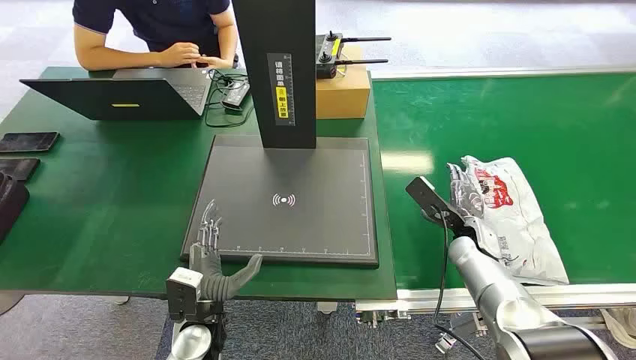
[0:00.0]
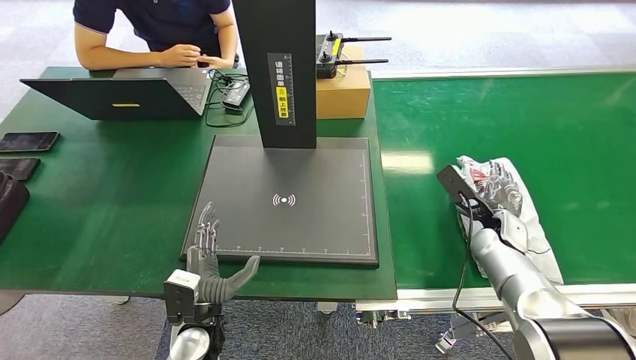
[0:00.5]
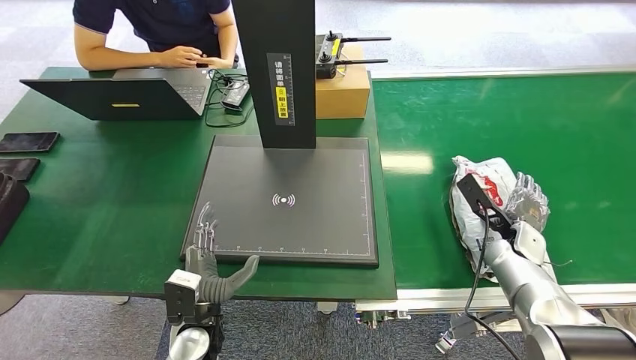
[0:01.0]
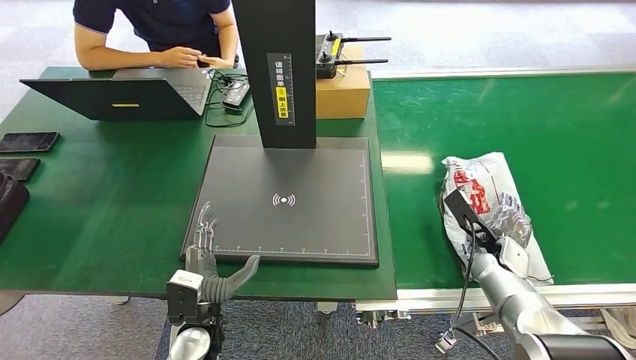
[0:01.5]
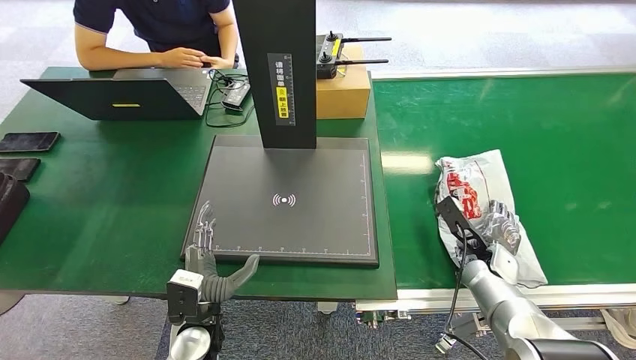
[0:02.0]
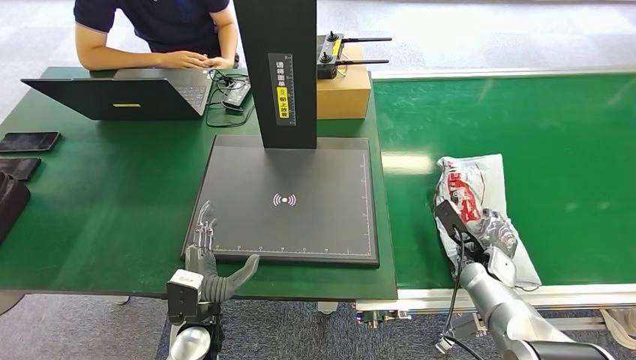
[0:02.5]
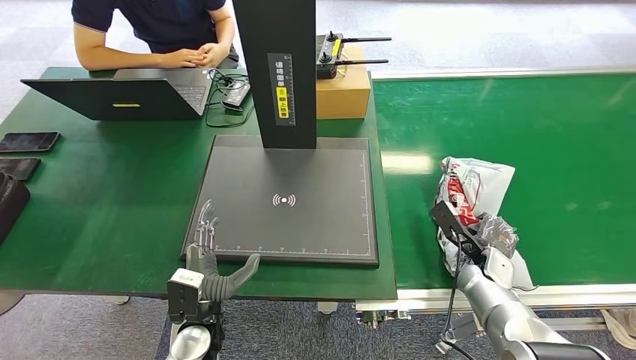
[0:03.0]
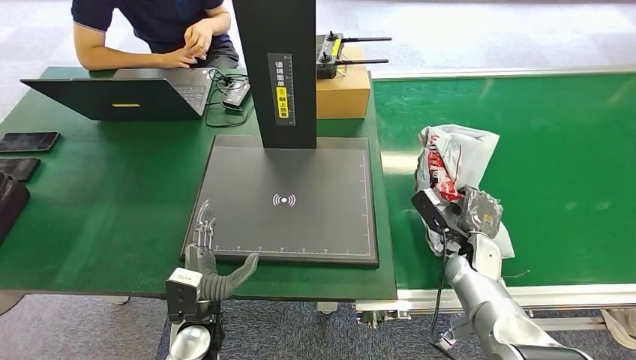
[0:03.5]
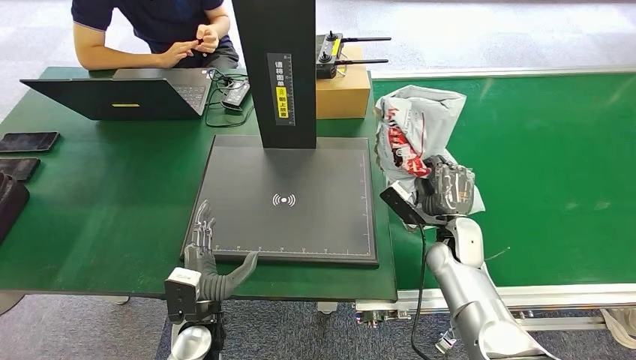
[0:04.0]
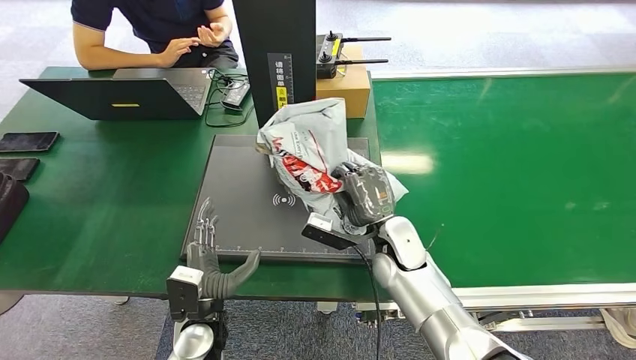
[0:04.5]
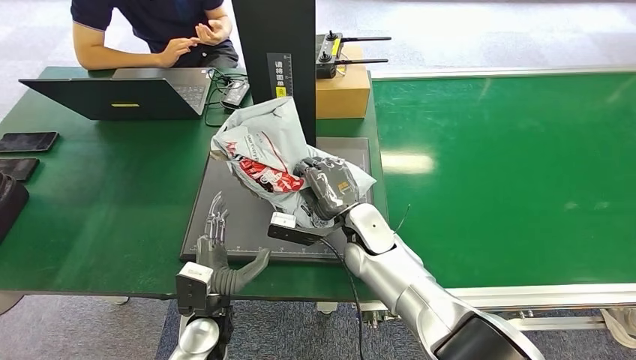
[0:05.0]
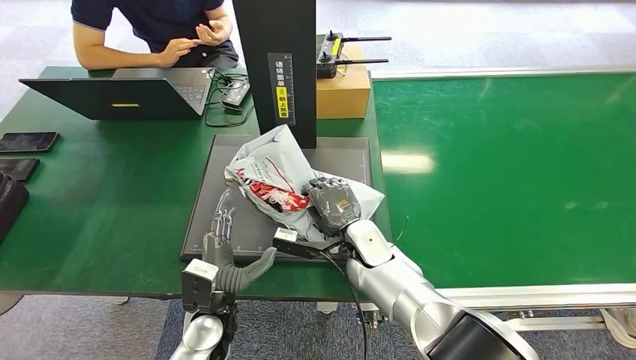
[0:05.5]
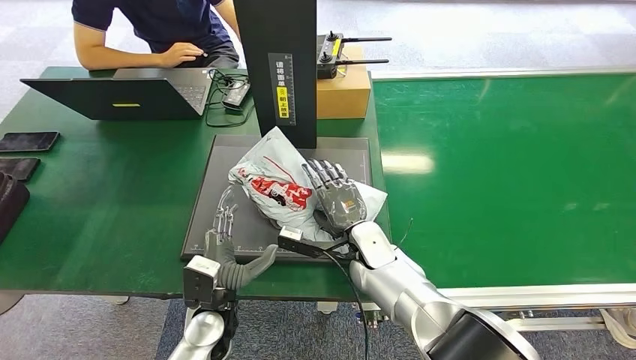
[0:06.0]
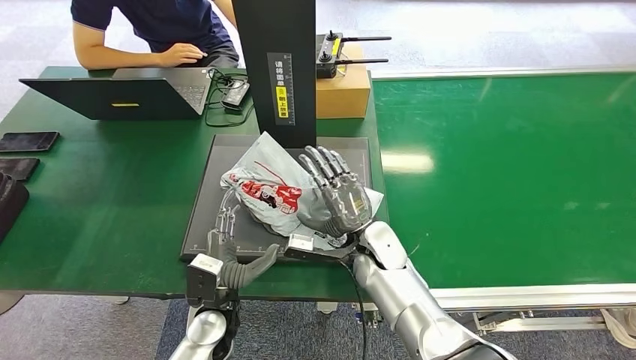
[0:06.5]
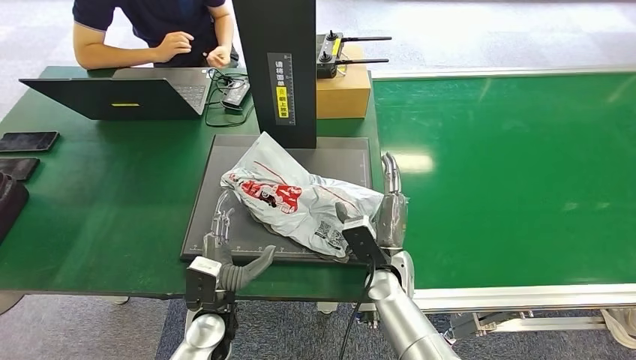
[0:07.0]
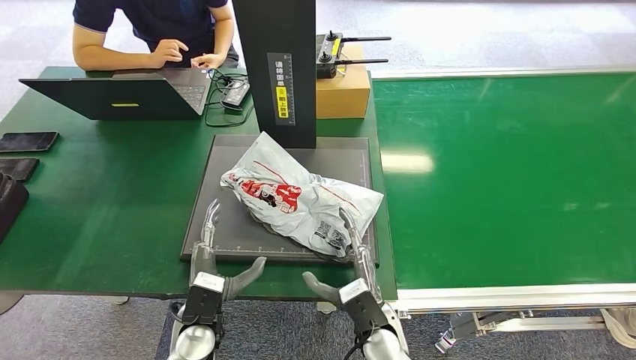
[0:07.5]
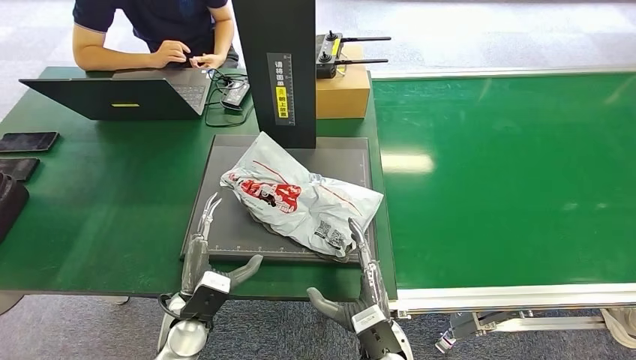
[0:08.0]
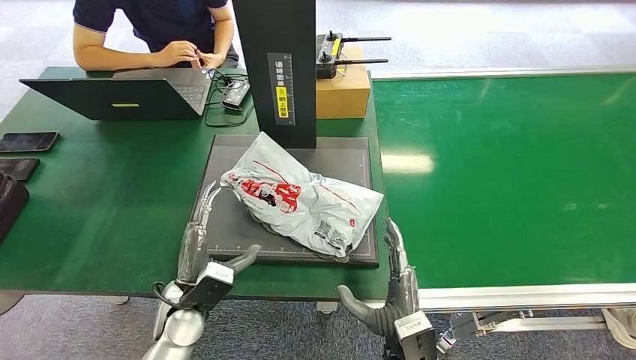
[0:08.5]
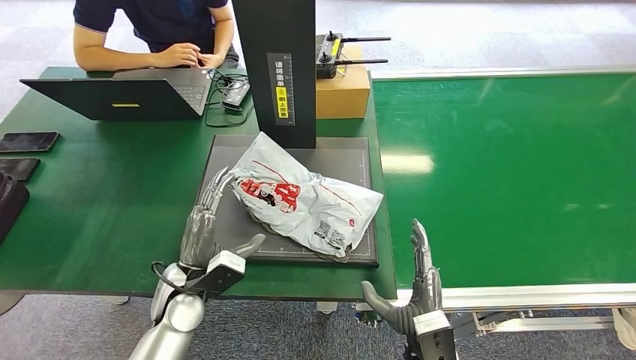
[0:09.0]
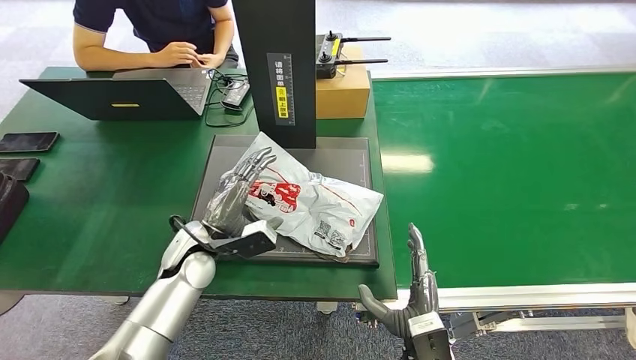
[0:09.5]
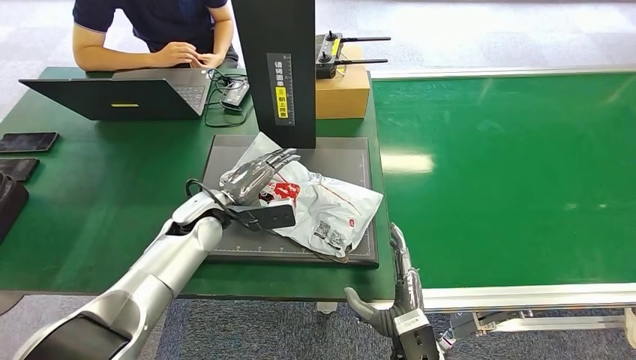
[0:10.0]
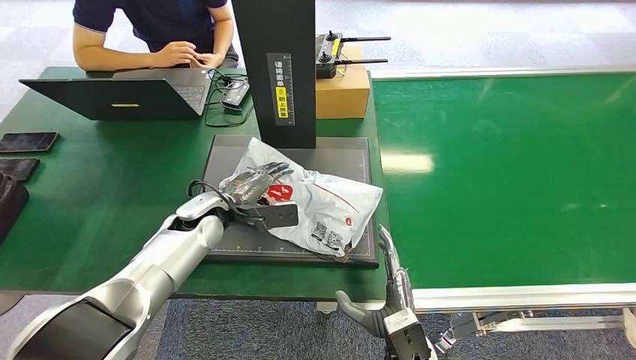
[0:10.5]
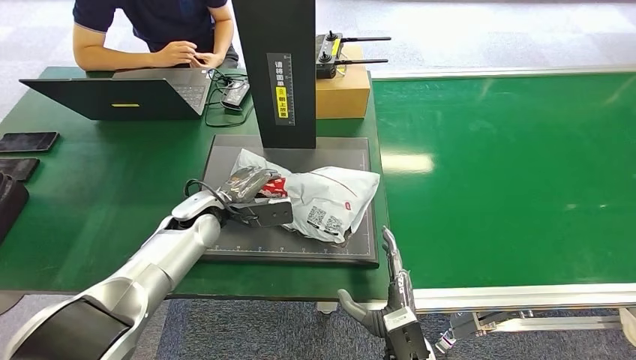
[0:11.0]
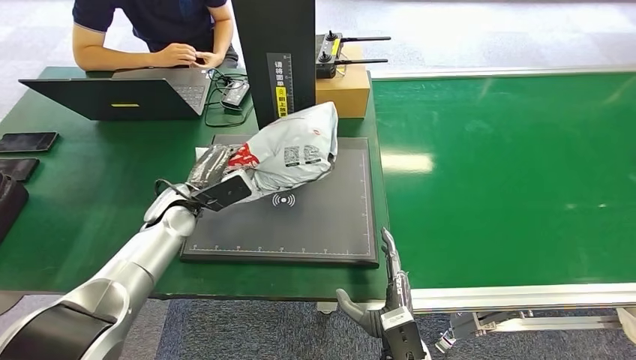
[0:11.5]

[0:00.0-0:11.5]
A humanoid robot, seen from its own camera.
Step, 0:00.0 to 0:04.0: Pick up the package from the conveyor belt.
Step, 0:04.5 to 0:07.0: Place the package onto the inbound machine.
0:02.0 to 0:04.0: The right hand is displaced to the left and upward by roughly 10 cm.
0:04.0 to 0:06.0: The right hand travels to the left by approximately 15 cm.
0:06.0 to 0:07.5: The right hand moves backward, approximately 15 cm.
0:07.5 to 0:09.5: The left hand travels forward and upward by about 15 cm. The right hand moves to the right and backward, approximately 10 cm.
0:09.5 to 0:11.5: The left hand is displaced forward and to the left by approximately 10 cm.

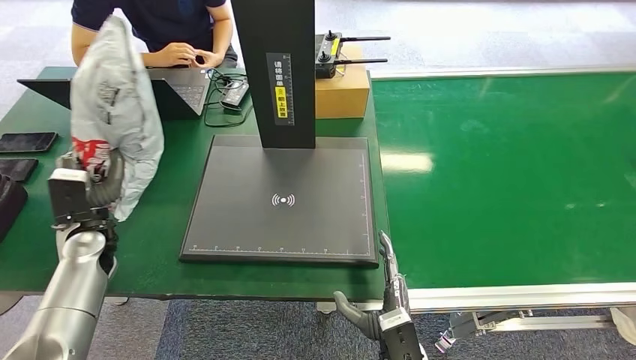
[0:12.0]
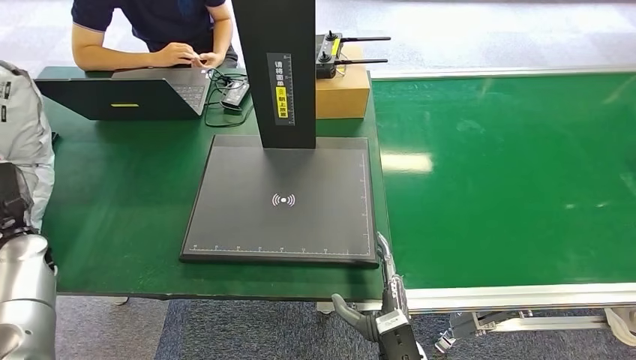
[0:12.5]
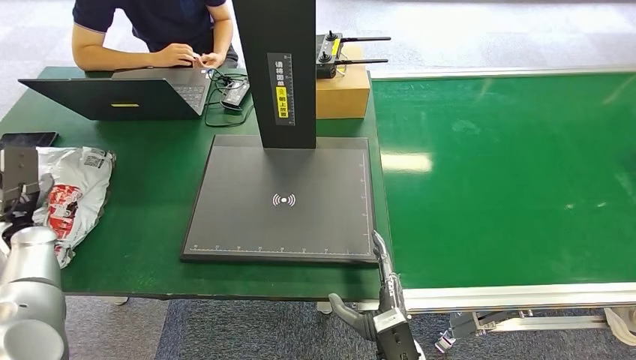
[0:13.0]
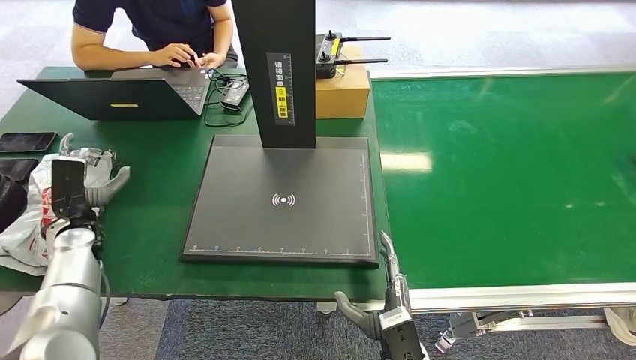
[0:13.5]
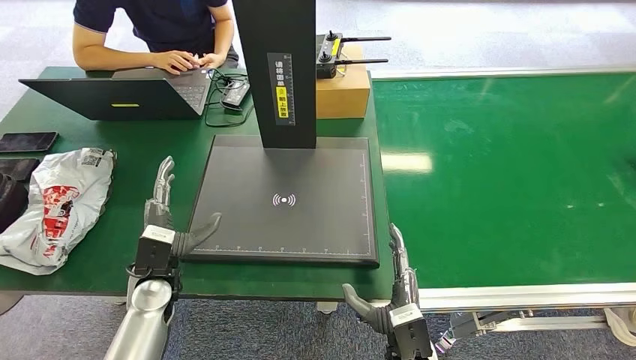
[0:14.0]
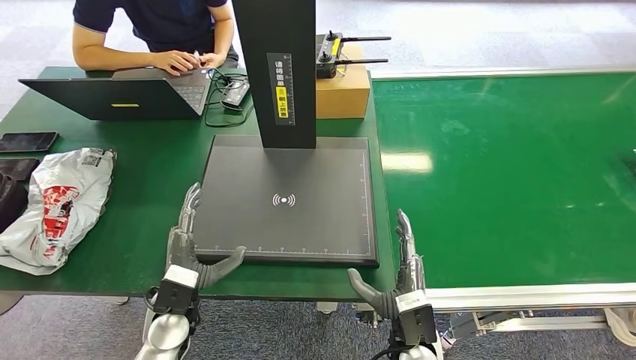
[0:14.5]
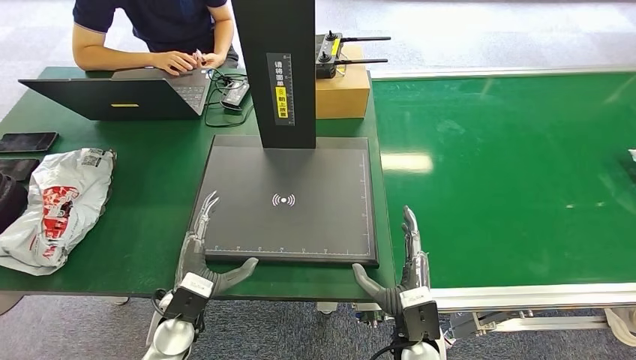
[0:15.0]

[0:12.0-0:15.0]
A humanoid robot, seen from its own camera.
Step, 0:12.5 to 0:15.0: Place the package into the parcel locker.
0:12.0 to 0:13.5: The left hand travels to the left and back again, roughly 10 cm each way.
0:13.5 to 0:15.0: The left hand moves to the right and backward, some 25 cm.

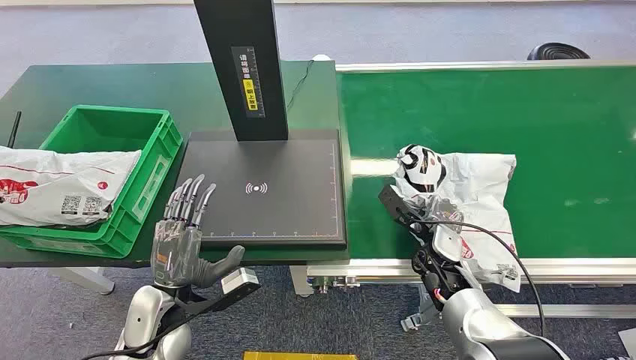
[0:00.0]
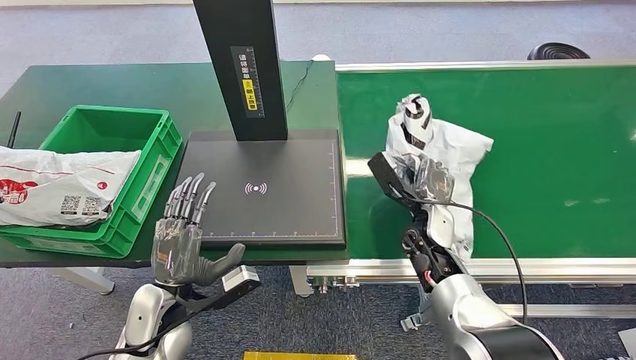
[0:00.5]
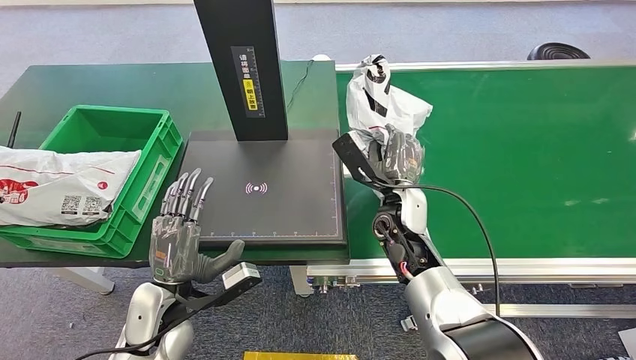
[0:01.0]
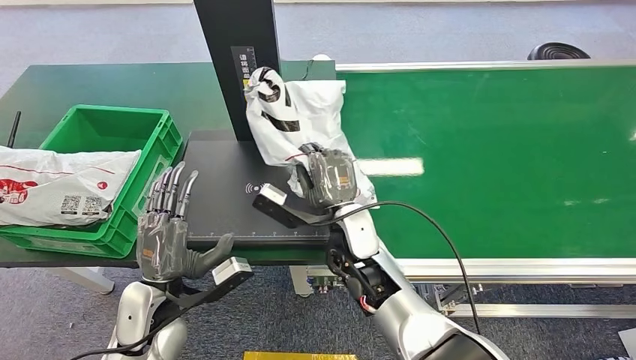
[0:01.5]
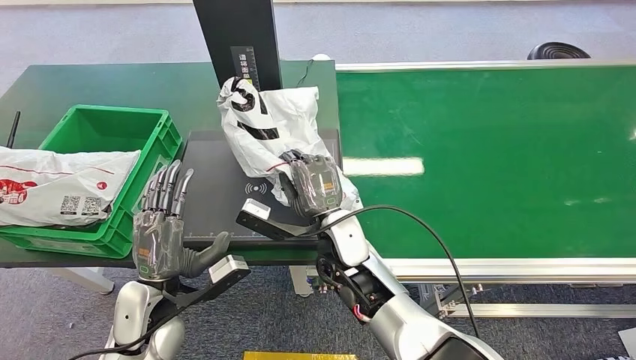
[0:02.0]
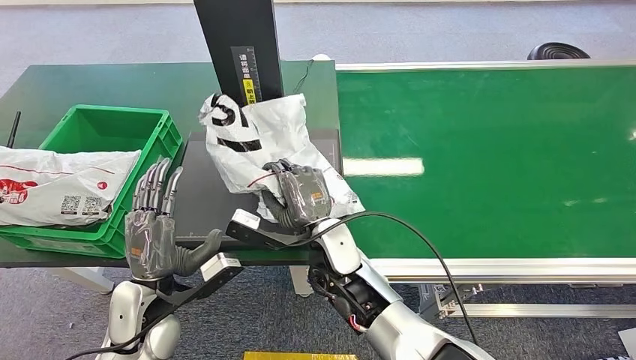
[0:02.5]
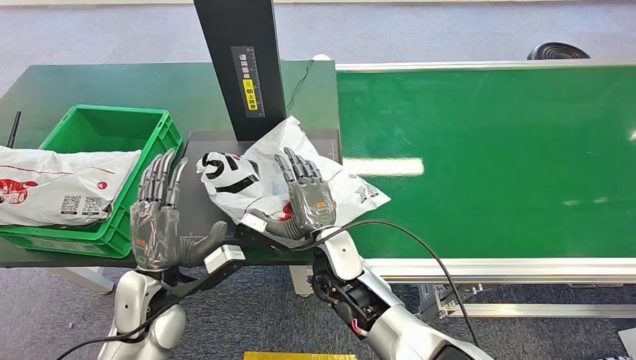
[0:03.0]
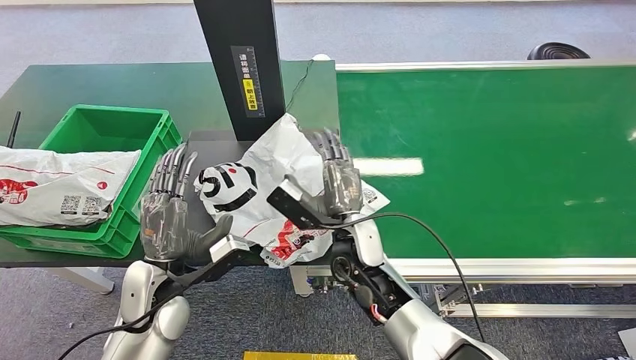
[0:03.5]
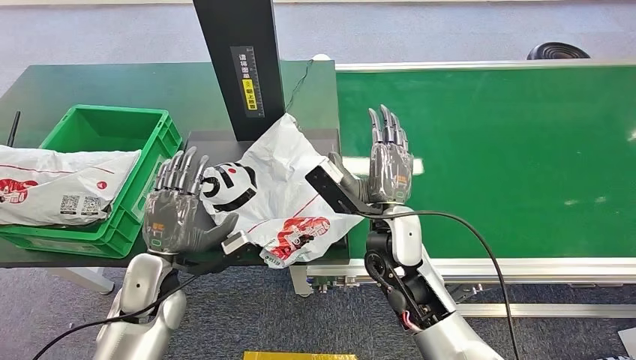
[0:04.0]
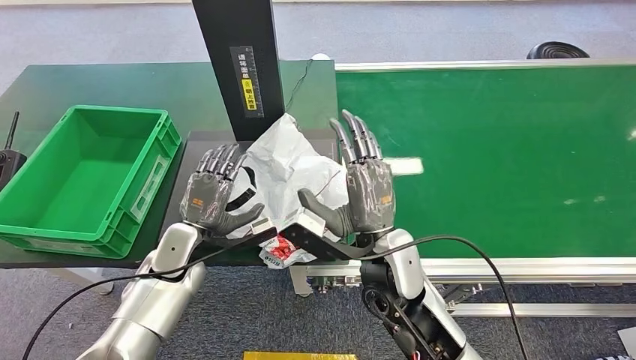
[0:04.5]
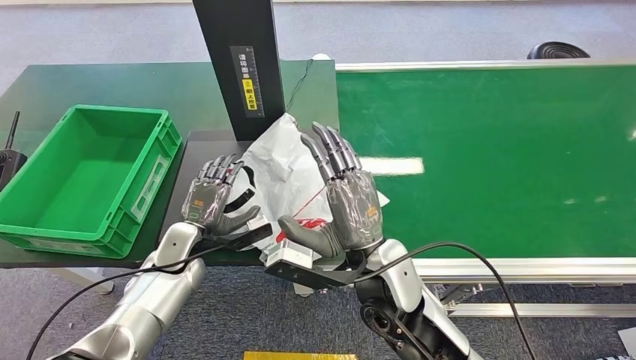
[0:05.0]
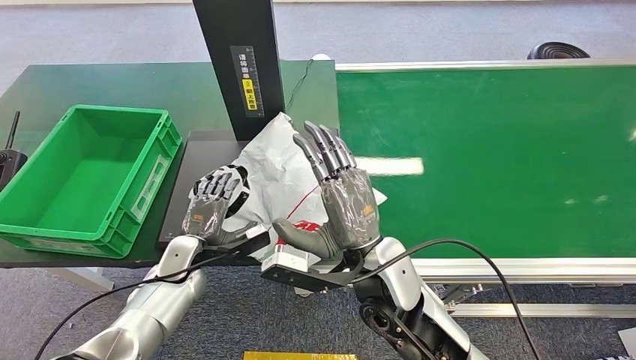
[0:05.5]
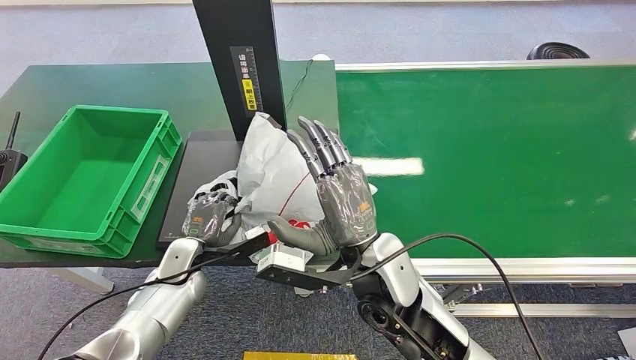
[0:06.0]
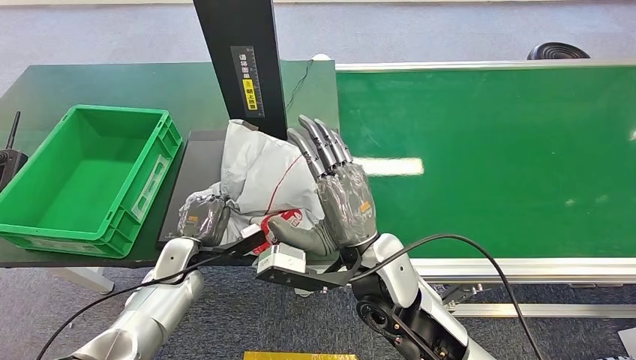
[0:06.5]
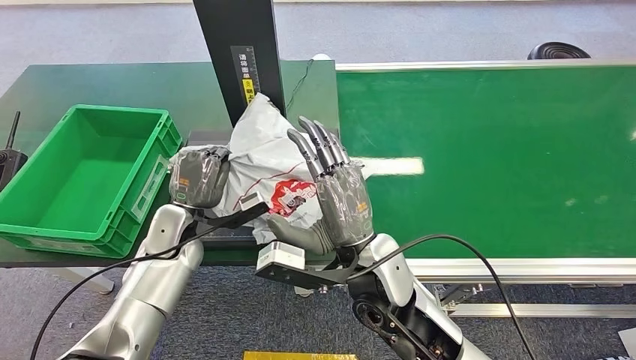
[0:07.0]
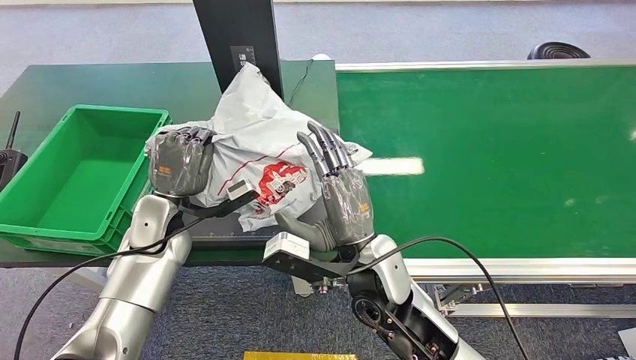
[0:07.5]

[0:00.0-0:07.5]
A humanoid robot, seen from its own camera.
Step, 0:00.0 to 0:00.5: Pick up the package from the conveyor belt.
Step, 0:01.5 to 0:04.0: Place the package onto the inbound machine.
0:05.5 to 0:07.5: The left hand moves upward, approximately 10 cm.
